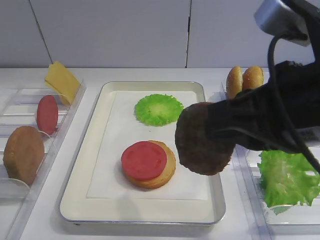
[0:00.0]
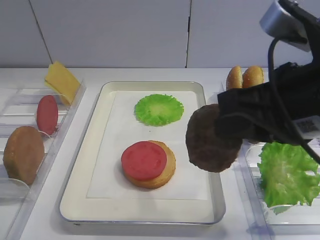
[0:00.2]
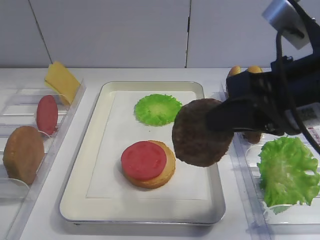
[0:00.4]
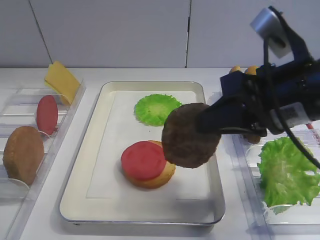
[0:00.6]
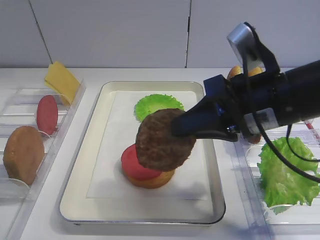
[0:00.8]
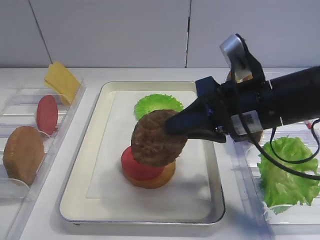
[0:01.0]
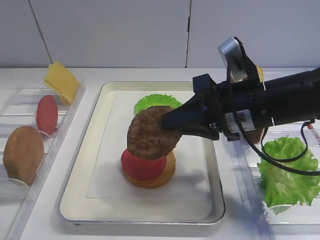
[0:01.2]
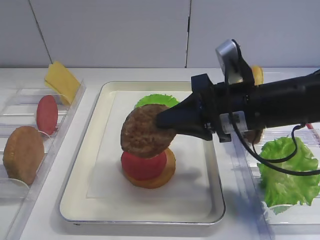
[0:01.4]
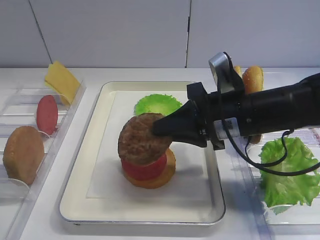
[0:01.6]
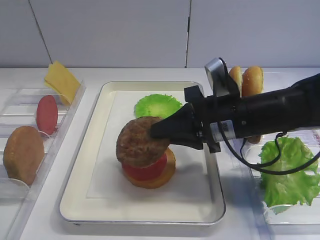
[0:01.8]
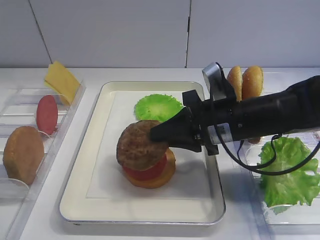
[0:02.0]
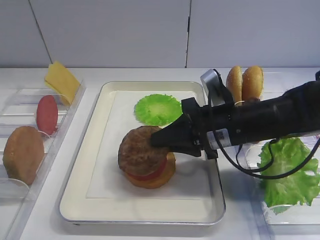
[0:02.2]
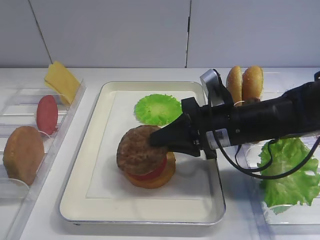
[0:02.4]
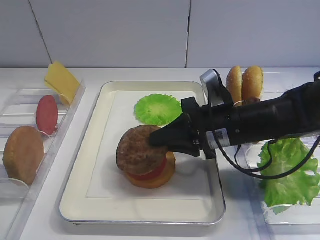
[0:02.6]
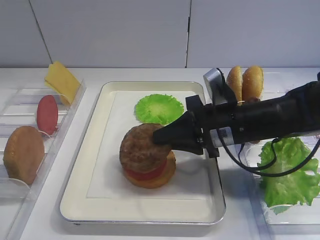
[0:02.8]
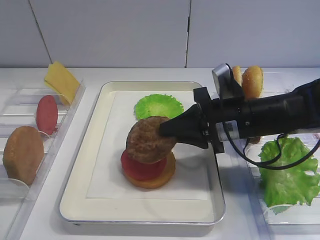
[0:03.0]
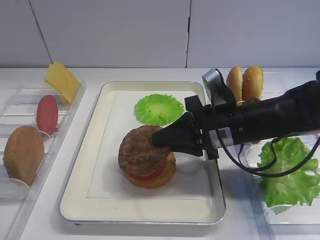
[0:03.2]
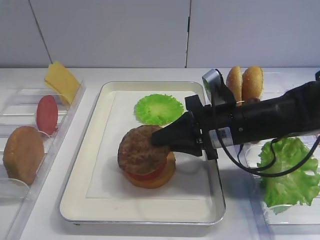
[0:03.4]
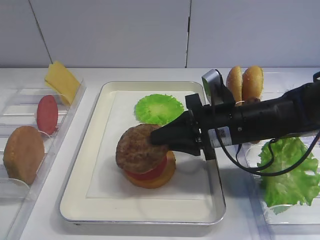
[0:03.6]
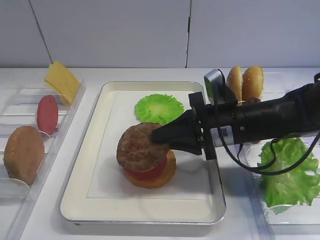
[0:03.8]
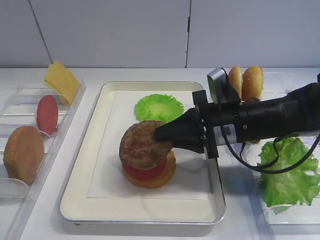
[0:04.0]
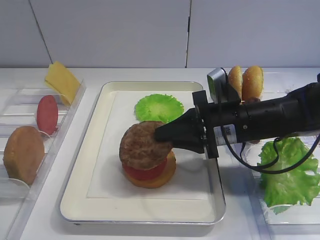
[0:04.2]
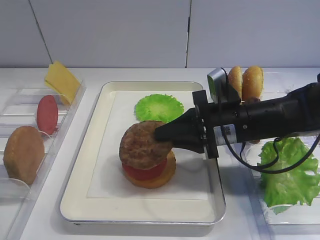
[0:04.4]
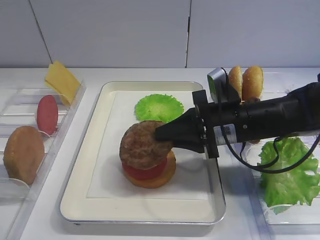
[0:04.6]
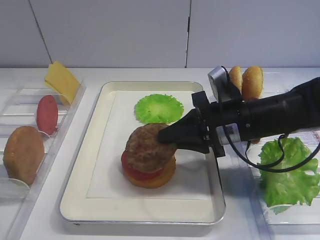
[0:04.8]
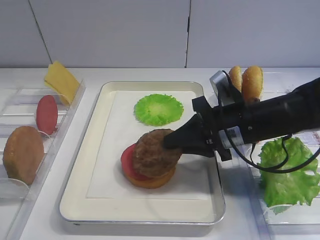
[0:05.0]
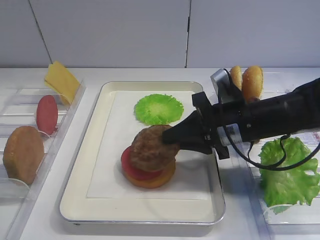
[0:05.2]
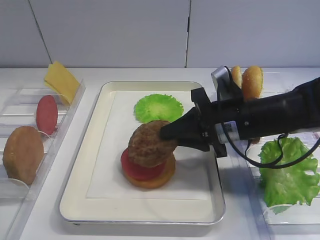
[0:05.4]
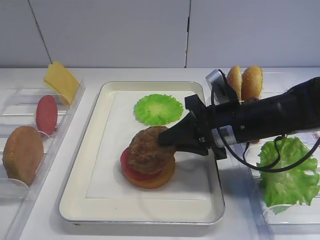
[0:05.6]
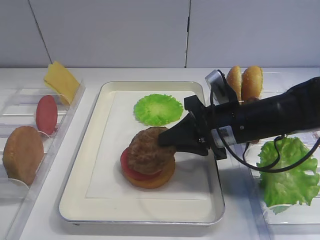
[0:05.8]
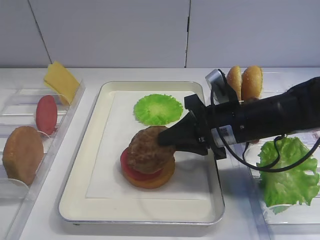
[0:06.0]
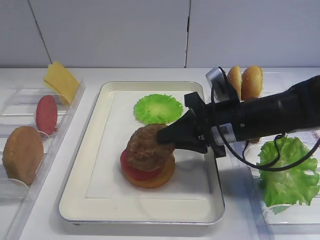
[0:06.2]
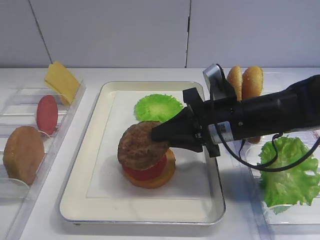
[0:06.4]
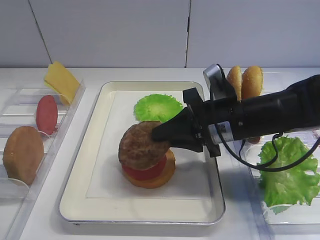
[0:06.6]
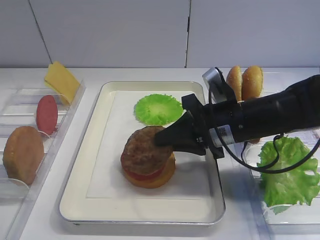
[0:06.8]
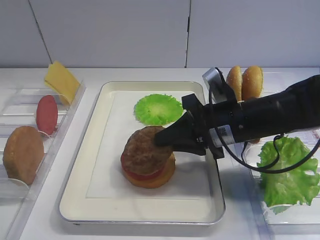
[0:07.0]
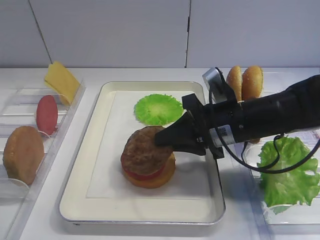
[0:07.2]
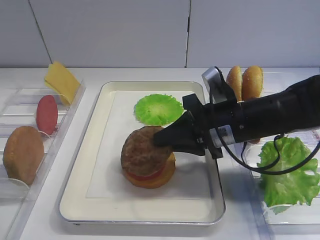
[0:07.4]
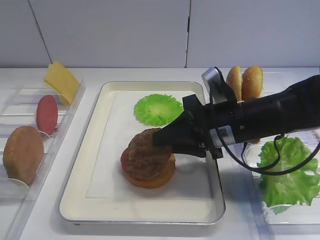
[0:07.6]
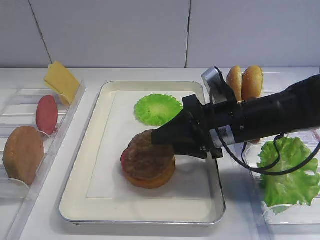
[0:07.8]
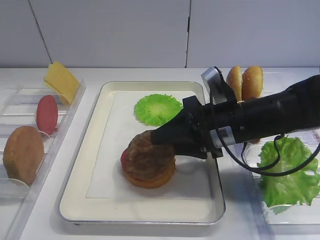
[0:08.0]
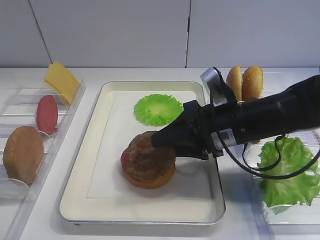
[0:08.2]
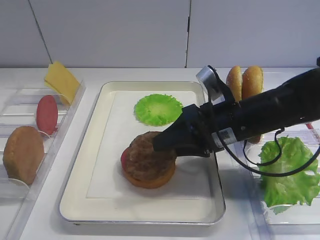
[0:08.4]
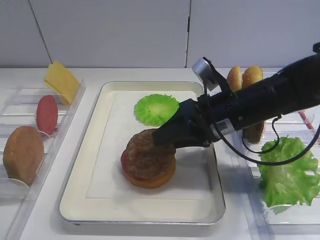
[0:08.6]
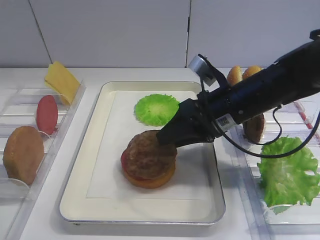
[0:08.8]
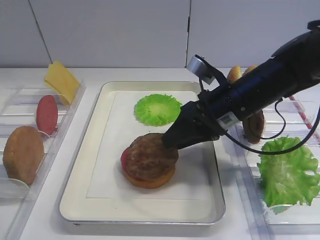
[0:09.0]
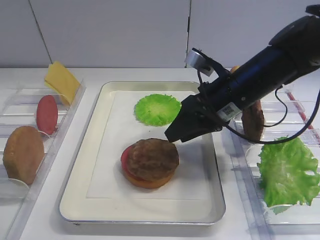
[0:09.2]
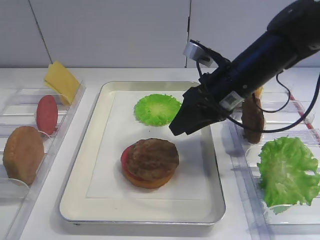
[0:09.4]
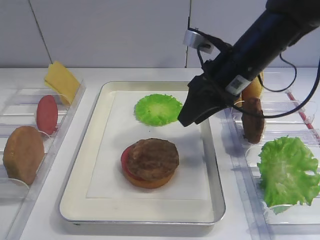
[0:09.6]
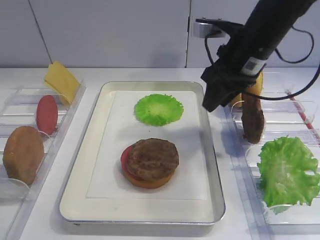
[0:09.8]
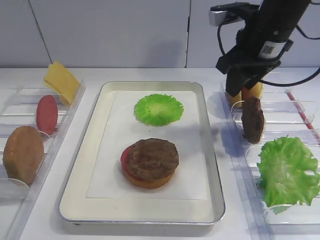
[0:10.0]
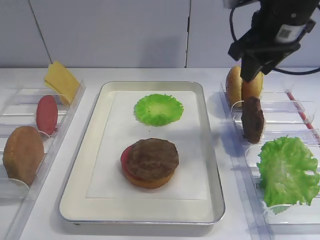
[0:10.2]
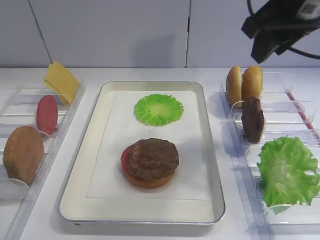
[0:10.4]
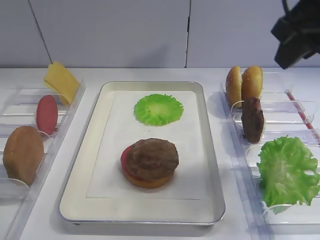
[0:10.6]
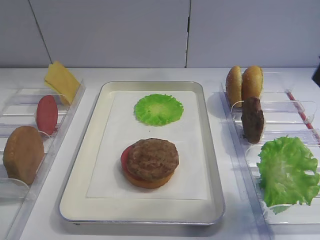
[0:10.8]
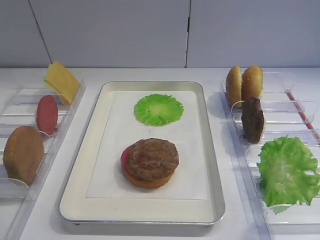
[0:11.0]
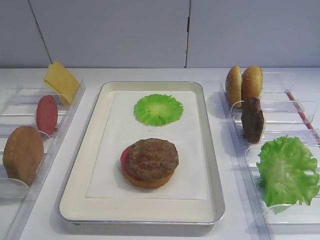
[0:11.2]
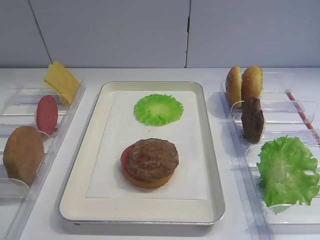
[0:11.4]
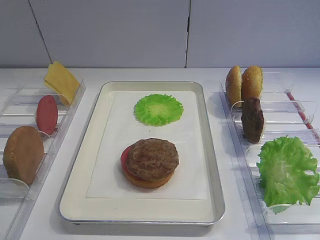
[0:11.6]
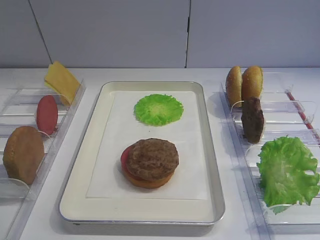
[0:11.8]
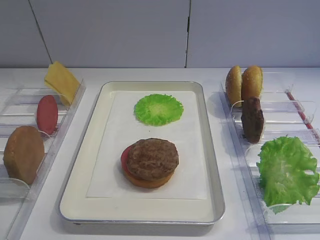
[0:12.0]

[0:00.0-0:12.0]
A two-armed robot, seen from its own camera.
Step, 0:00.0 to 0:09.2: Place the cutlet on the tomato slice with the right gripper.
0:00.0 to 0:01.6: The right gripper is displaced forward and downward by about 15 cm.
0:01.6 to 0:03.0: The grippers make only small movements.
0:03.0 to 0:04.4: Neither gripper changes place.
0:04.4 to 0:06.0: The grippers stay close to where they were, moving slightly.
0:06.0 to 0:07.6: The two grippers keep their place.
0:09.0 to 0:10.4: The right gripper travels upward by roughly 15 cm.
0:10.4 to 0:12.0: The right gripper shifts about 30 cm backward, and opens.

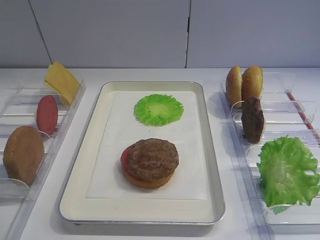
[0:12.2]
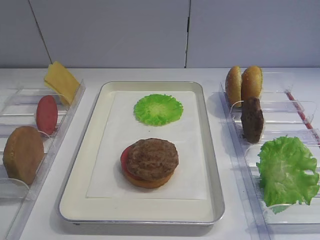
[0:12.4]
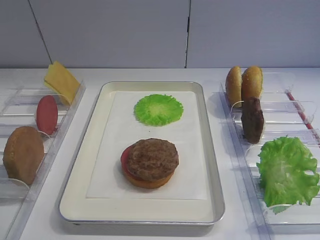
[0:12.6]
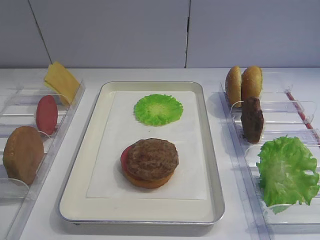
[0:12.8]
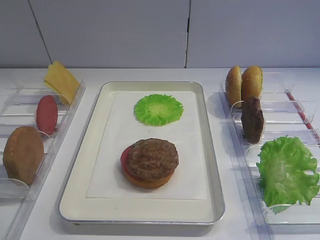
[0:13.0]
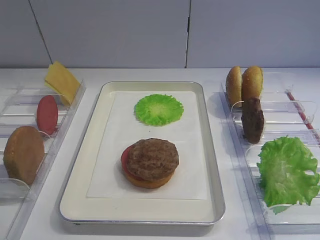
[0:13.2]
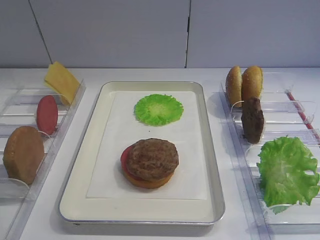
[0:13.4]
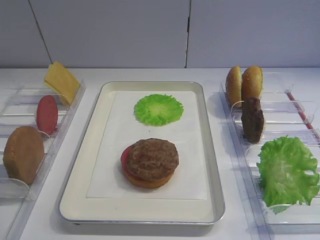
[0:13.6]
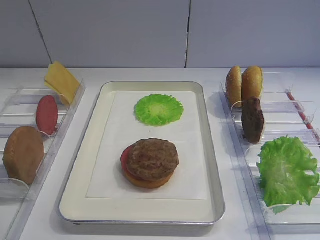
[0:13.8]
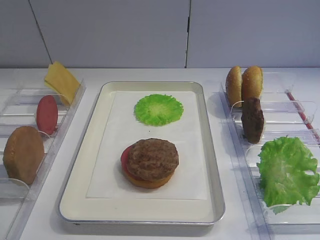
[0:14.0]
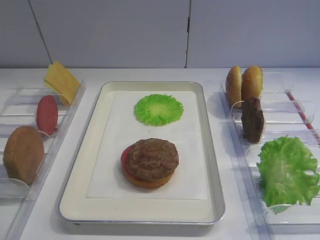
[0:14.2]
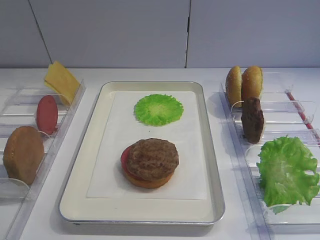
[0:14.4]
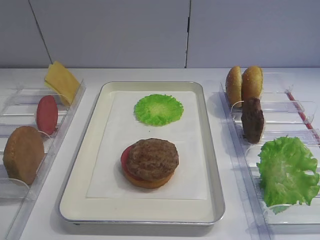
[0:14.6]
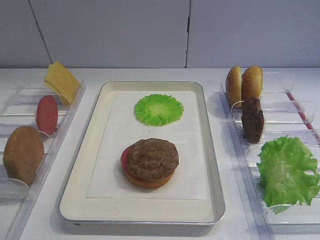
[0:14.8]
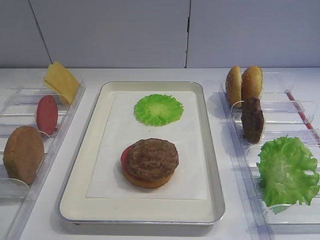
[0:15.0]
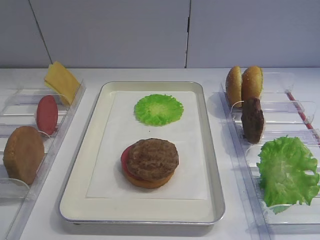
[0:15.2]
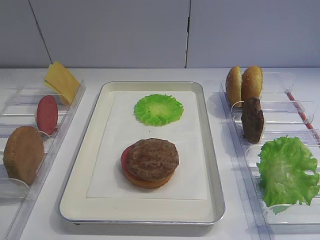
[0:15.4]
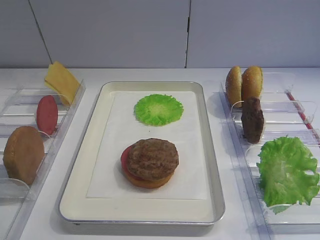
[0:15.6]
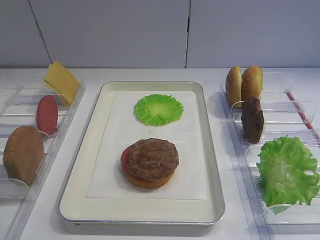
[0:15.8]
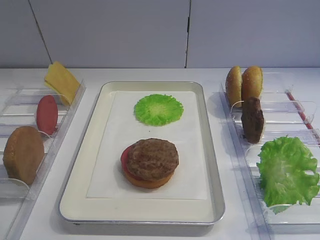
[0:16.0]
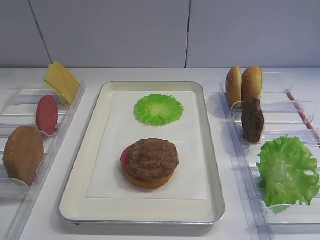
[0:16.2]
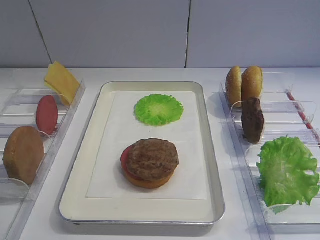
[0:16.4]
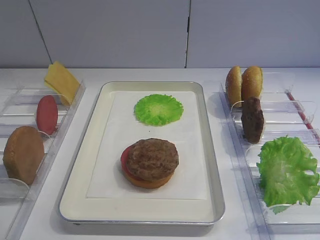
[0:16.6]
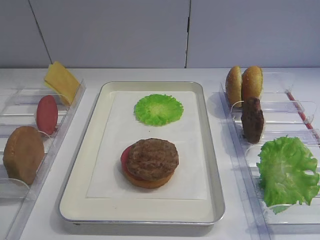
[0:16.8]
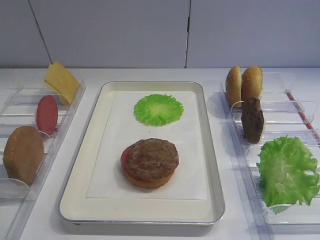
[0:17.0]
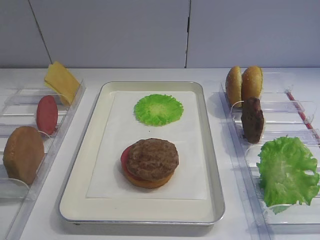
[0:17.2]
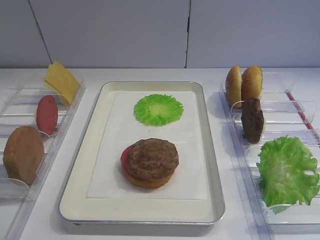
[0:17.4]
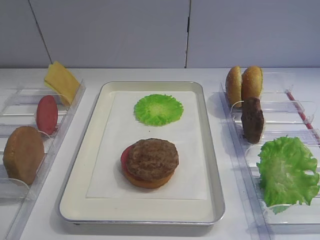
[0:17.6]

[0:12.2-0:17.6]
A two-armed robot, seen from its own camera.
0:13.6 to 0:17.6: The two grippers keep their place.

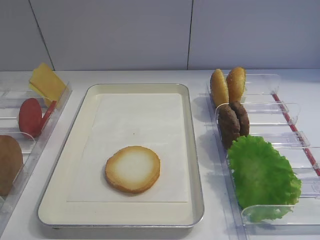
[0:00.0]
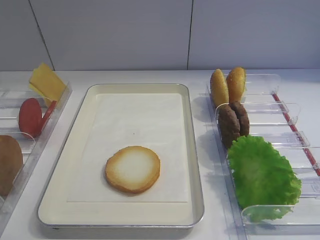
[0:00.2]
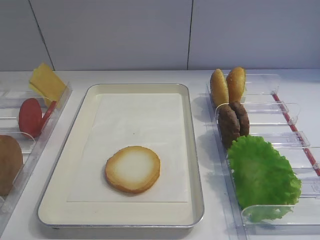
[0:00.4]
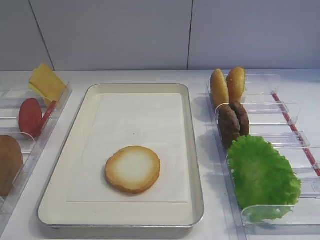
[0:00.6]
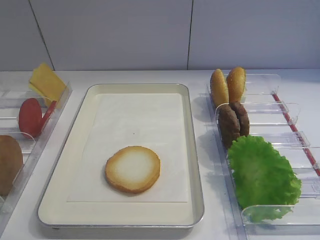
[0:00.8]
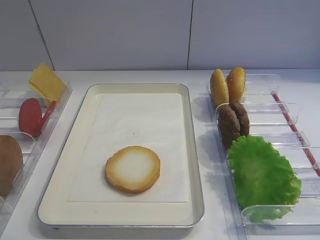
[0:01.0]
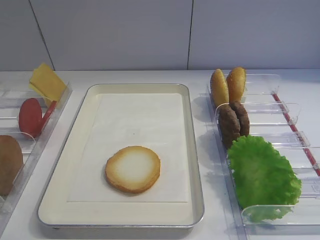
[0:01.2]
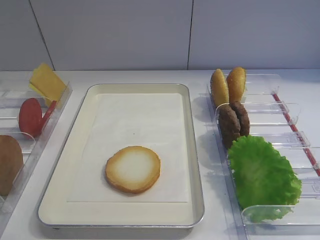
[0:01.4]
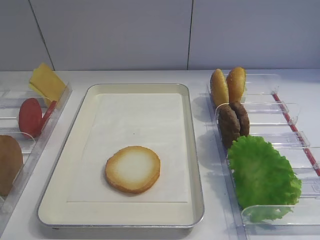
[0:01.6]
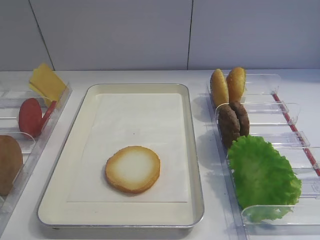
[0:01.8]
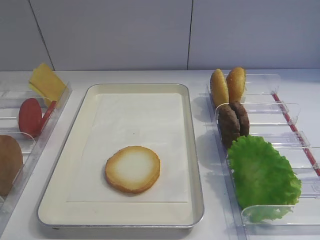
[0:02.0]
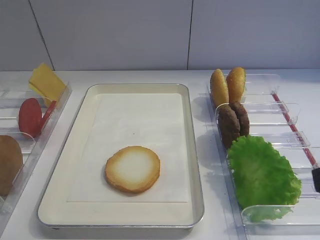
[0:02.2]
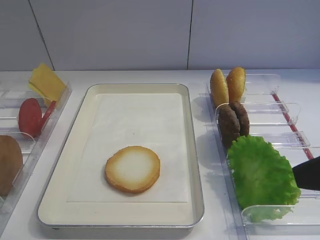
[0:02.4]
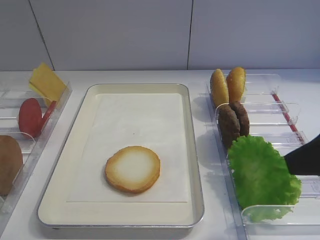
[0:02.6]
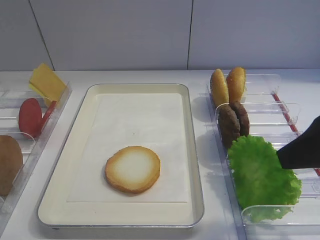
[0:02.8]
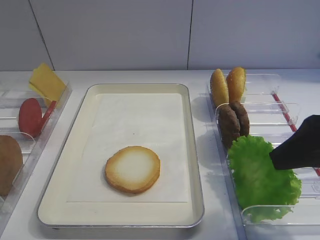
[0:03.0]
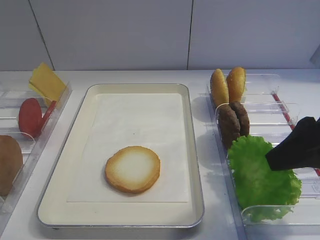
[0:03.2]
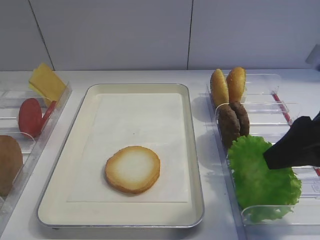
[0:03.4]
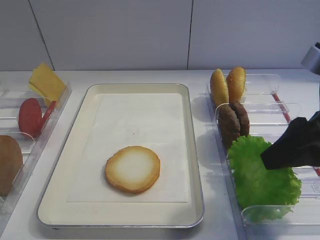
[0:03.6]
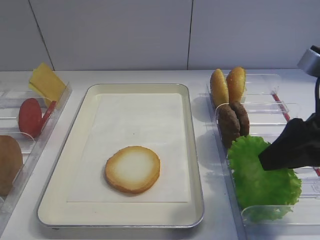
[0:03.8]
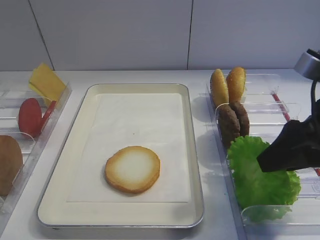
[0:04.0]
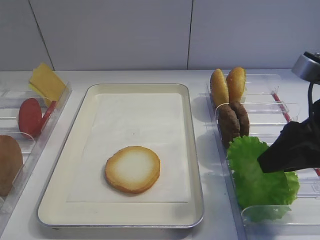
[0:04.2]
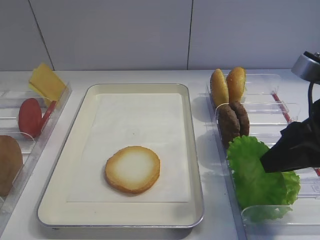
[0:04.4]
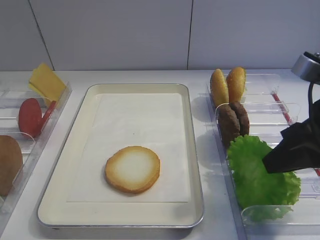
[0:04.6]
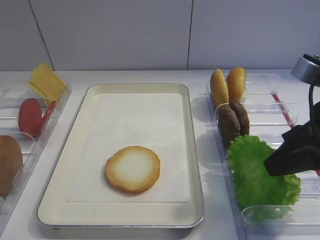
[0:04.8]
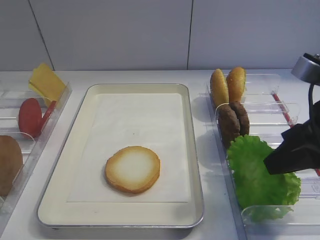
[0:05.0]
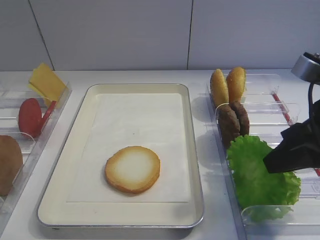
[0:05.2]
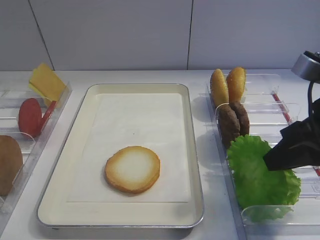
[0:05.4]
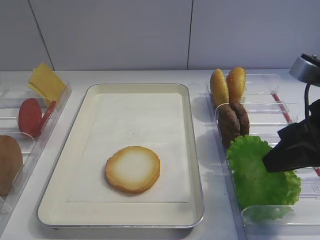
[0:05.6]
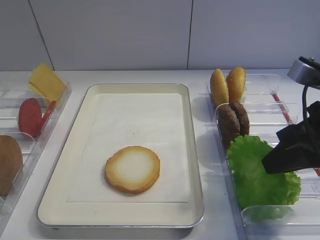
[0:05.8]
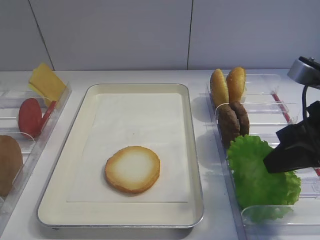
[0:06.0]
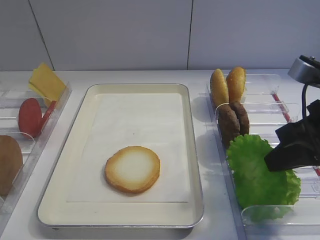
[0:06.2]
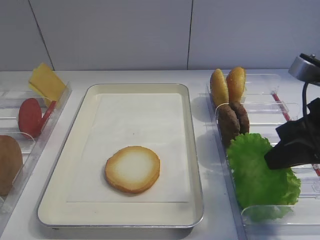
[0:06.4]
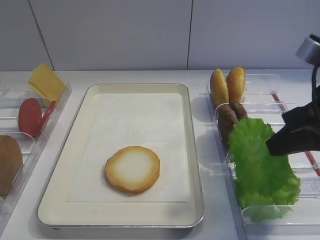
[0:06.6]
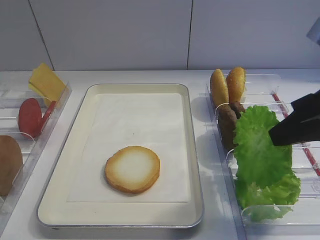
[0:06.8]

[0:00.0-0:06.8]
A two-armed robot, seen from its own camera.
0:01.4 to 0:02.8: The right gripper moves forward, roughly 15 cm.
0:02.8 to 0:04.0: The grippers make only small movements.
0:04.0 to 0:05.4: The right gripper closes up.
0:05.4 to 0:06.8: The grippers stay close to where they were, moving slightly.
